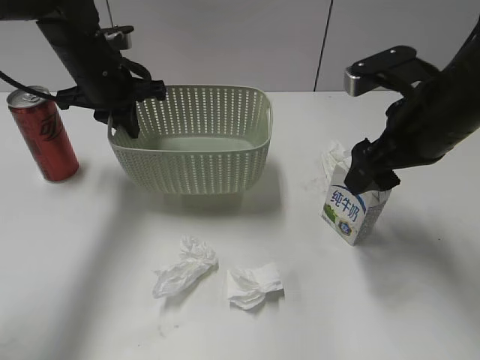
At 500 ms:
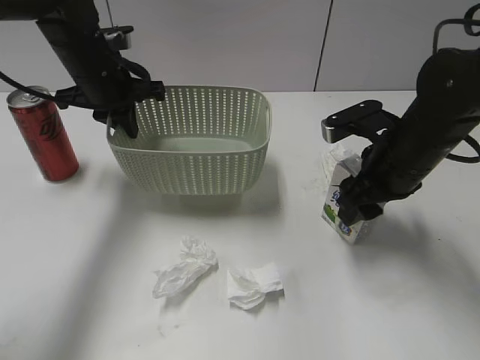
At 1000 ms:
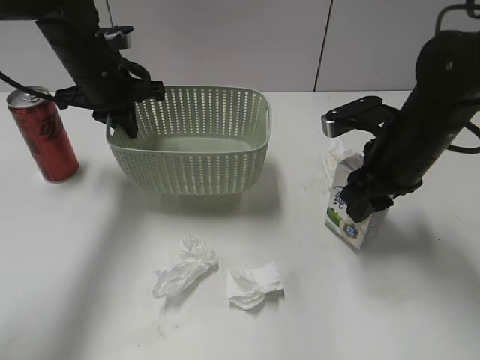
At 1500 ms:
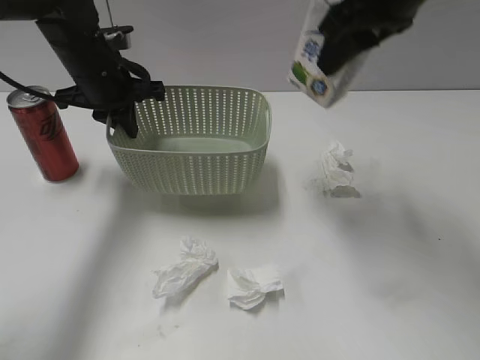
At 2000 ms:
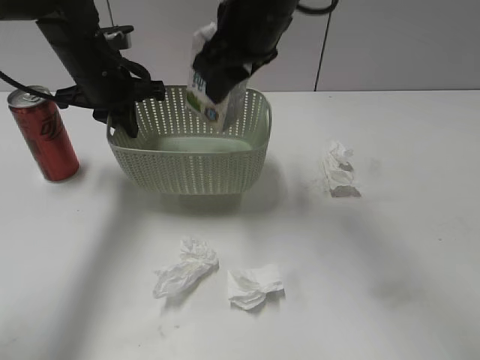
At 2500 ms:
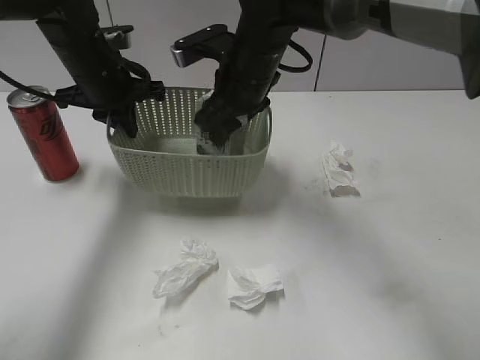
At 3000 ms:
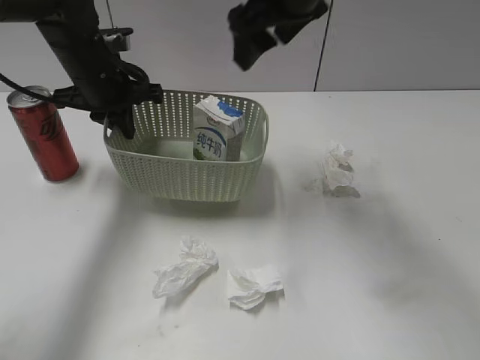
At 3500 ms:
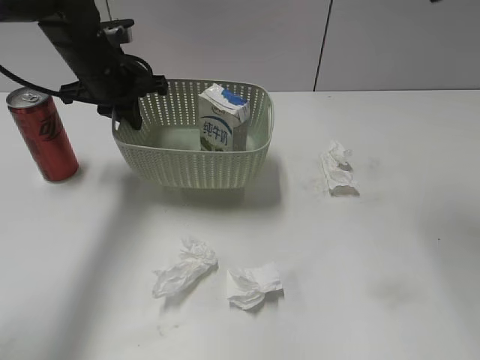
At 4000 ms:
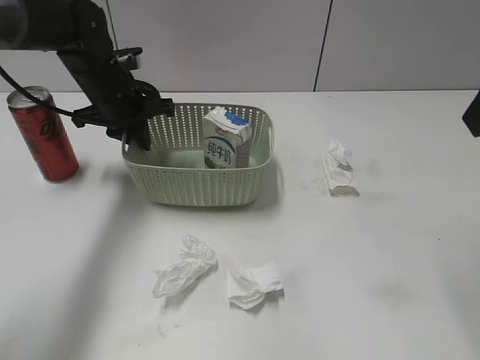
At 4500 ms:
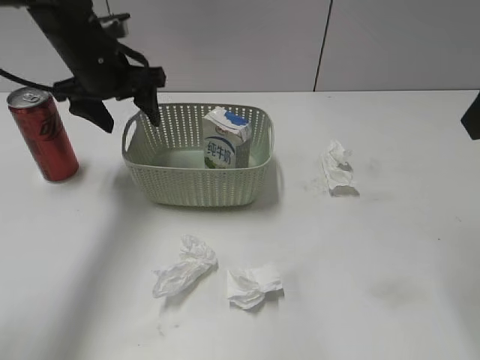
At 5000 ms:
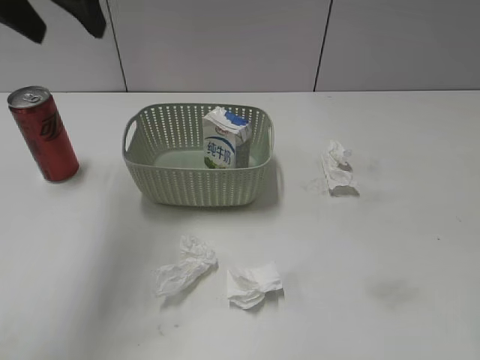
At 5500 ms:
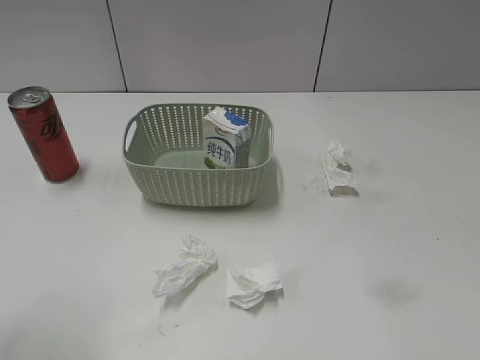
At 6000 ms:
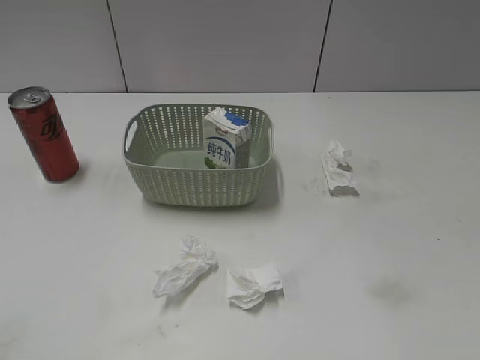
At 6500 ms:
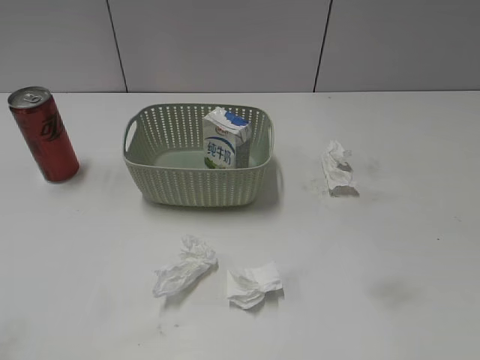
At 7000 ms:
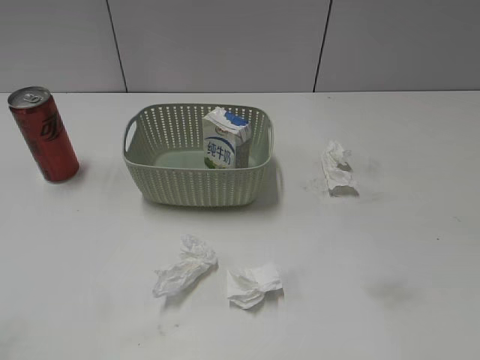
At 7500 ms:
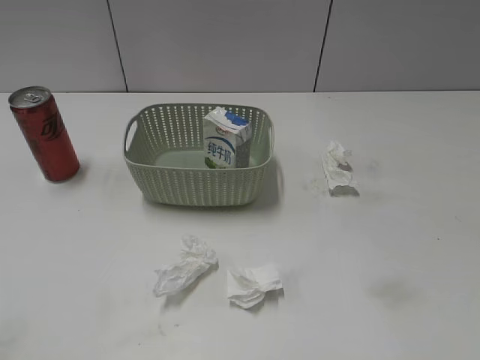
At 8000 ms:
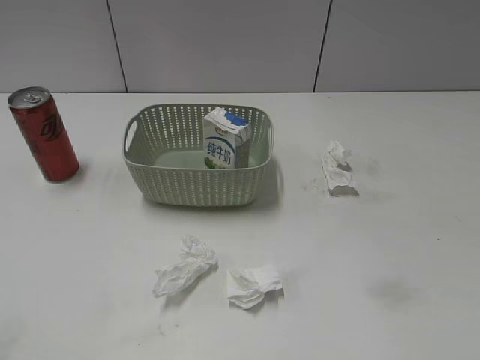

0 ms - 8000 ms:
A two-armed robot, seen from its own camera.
Step, 1000 ms - 2500 ms: Place the milk in the basket with right gripper.
Step, 3000 ms - 4500 ms: Place the basket on the table with left gripper.
0 ms - 2000 ms: The right gripper swings up and down, about 20 cm each way, with 2 reversals, and closes its fingers.
2000 ms - 4000 ms: The right gripper is displaced to the right and backward by some 25 cm, and opens its fingers.
4000 ms - 6000 ms: The left gripper travels backward by about 40 cm, and opens, while the right gripper moves backward and downward, approximately 20 cm.
